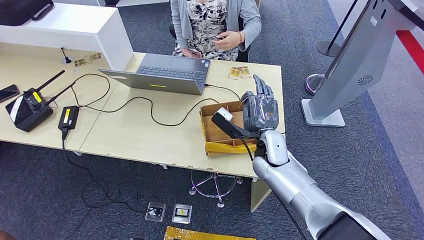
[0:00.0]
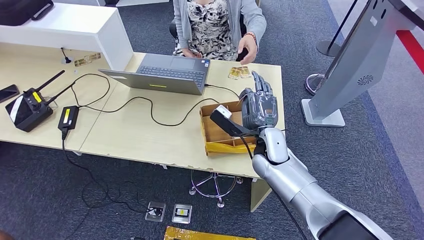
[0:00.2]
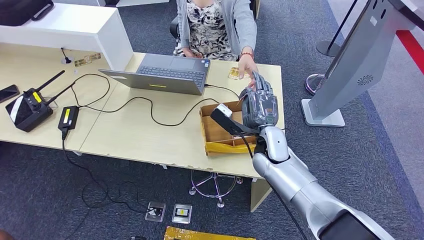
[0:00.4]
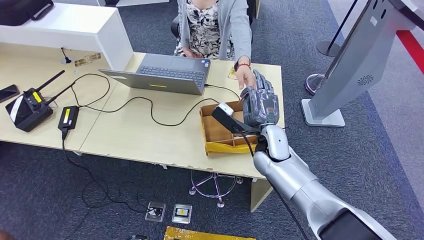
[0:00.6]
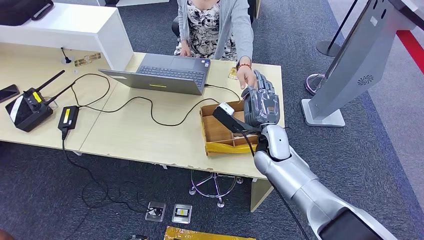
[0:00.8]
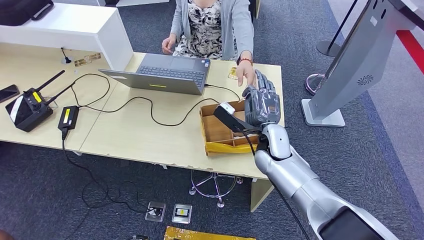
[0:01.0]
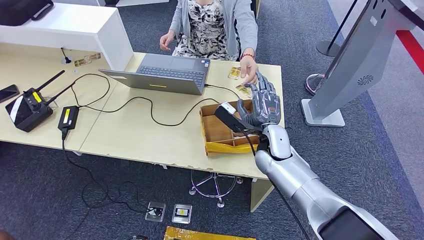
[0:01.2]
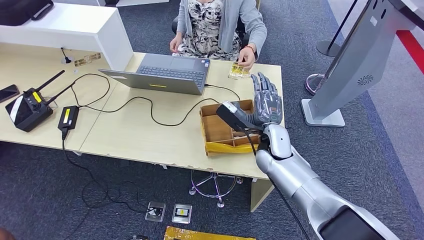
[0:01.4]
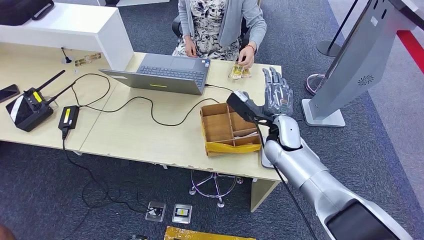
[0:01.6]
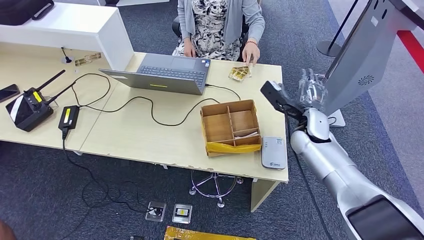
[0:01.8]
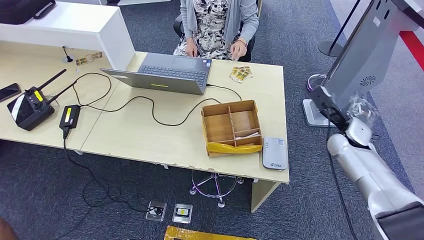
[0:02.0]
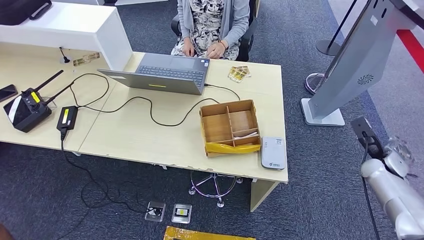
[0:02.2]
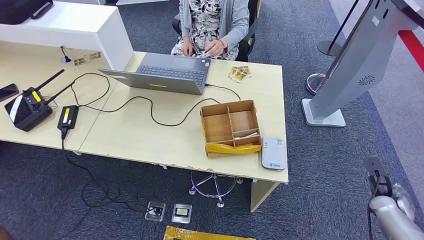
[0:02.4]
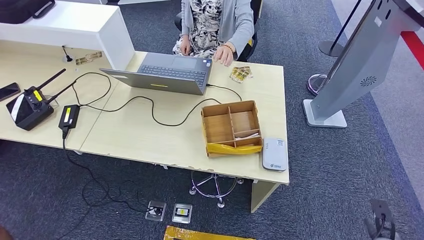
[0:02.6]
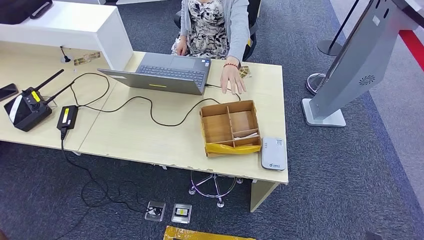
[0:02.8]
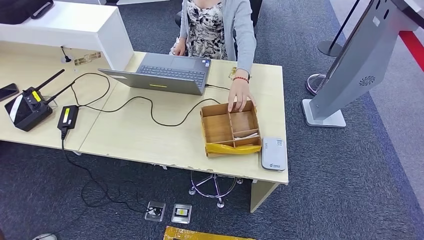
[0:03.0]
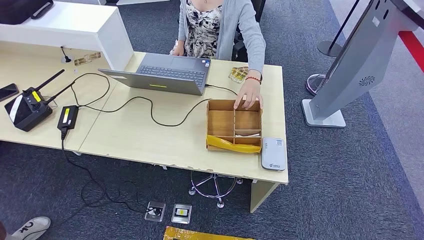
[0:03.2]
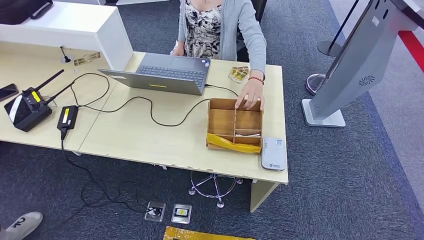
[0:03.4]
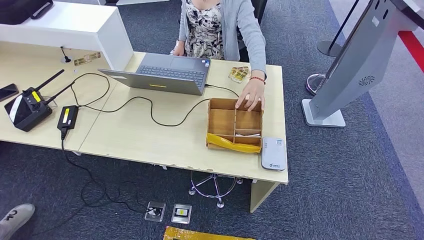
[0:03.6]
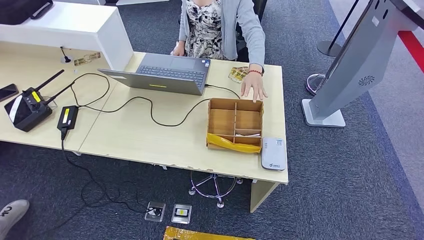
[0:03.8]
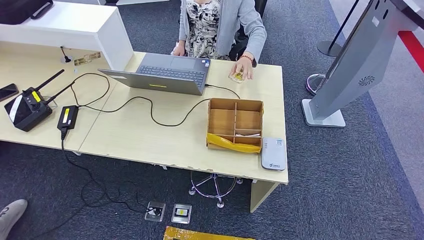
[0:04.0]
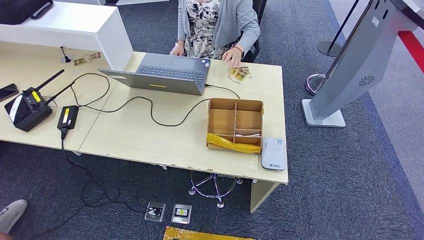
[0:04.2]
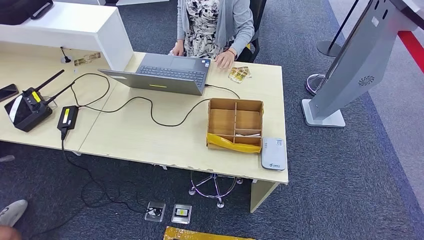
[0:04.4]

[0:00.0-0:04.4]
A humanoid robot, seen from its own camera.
Step, 0:00.4 to 0:04.4: Hand the room key to the person.
0:00.0 to 0:01.4: The hands stay close to where they were, moving slightly.
0:01.4 to 0:03.0: The right hand goes approximately 50 cm backward, to the right and downward.
0:03.0 to 0:04.4: The right hand shifts roughly 15 cm to the left and backward.
